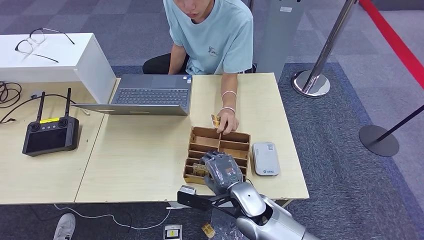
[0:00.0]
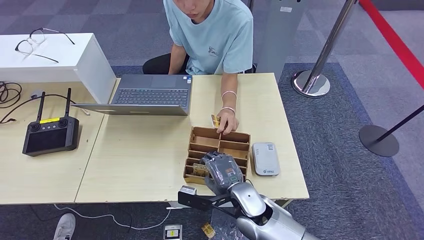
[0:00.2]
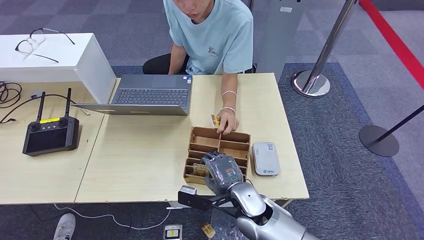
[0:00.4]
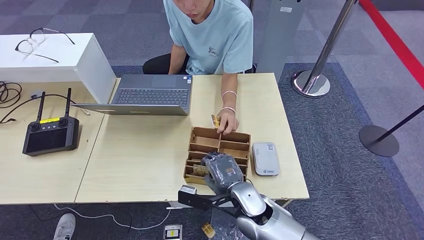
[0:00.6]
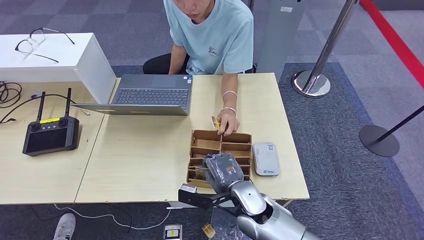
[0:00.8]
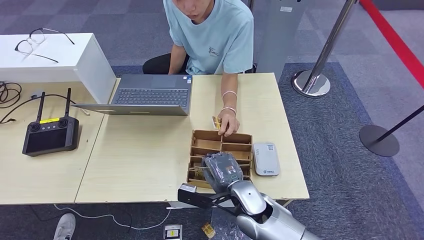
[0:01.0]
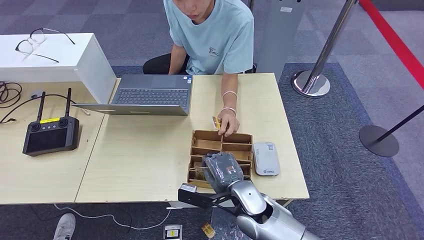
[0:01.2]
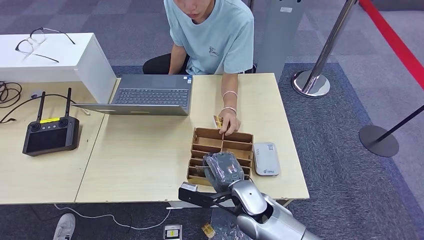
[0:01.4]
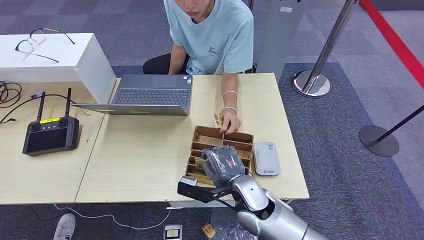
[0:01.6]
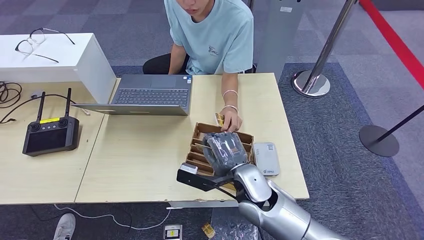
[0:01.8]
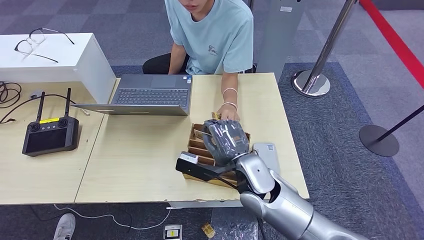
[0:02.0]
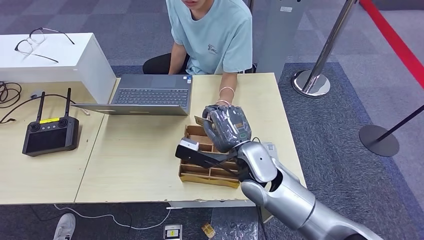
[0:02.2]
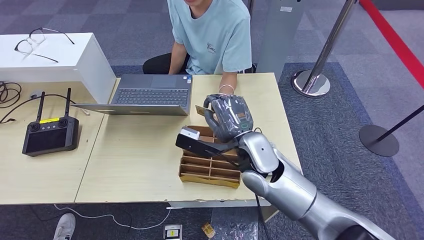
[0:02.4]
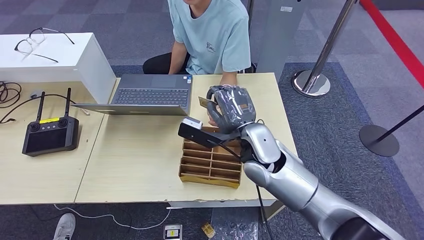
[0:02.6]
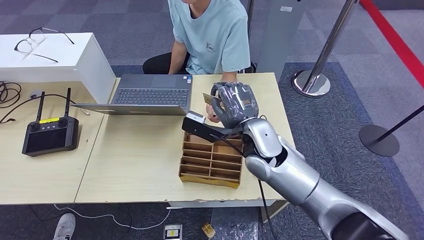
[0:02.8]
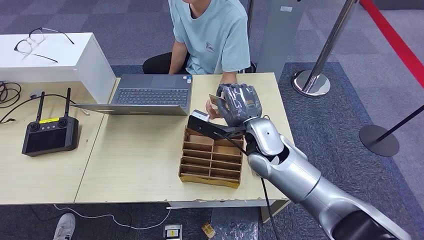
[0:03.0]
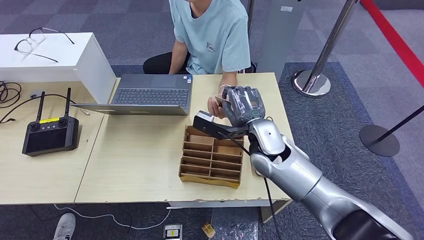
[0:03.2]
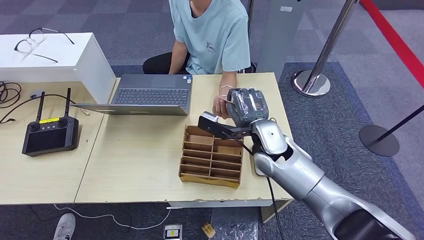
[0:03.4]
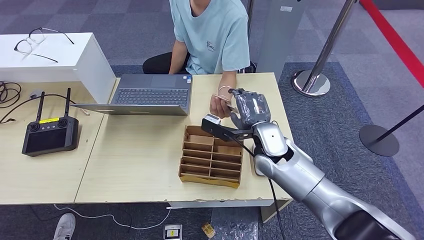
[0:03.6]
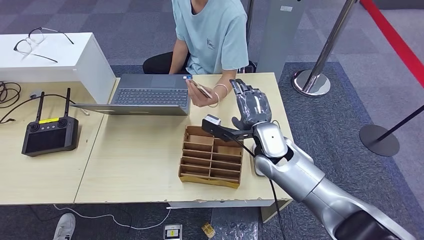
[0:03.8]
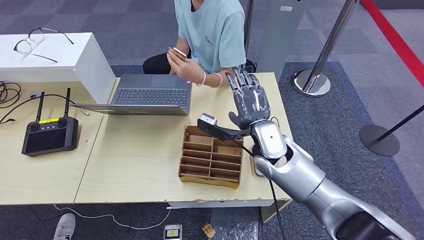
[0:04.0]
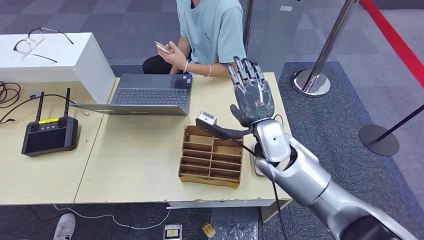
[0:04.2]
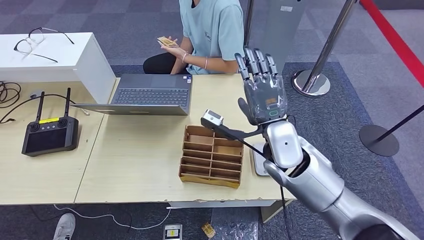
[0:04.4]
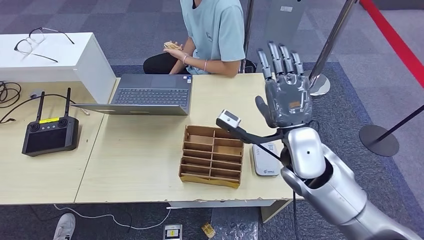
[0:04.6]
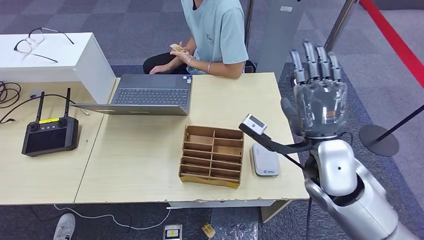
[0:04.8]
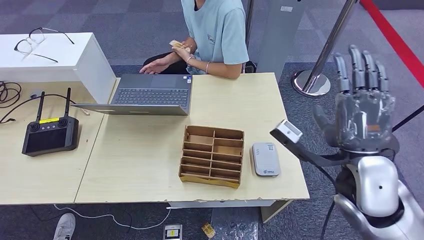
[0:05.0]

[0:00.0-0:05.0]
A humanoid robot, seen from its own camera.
Step, 0:01.4 to 0:05.0: Hand the room key to the person.
0:00.0 to 0:01.6: The hands make only small movements.
0:01.6 to 0:03.4: The right hand is displaced forward and upward by about 15 cm.
0:03.4 to 0:05.0: The right hand is displaced backward, to the right and upward by some 20 cm.

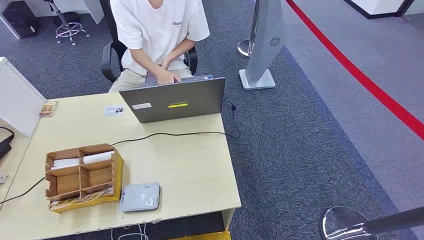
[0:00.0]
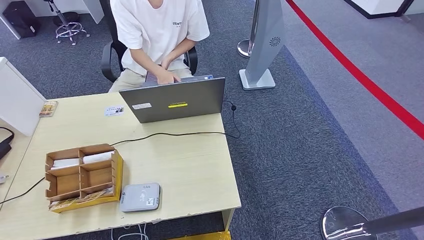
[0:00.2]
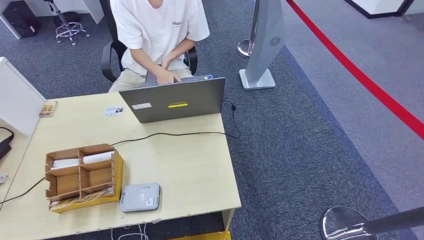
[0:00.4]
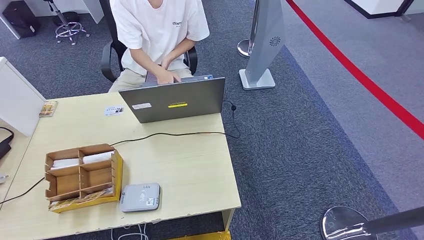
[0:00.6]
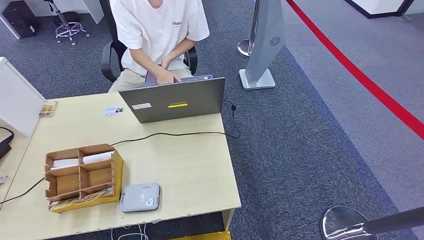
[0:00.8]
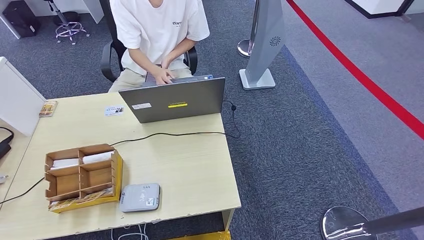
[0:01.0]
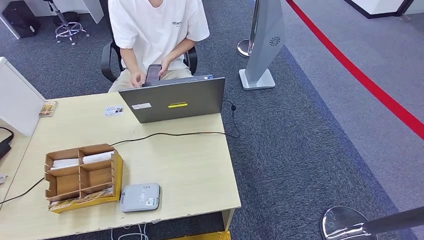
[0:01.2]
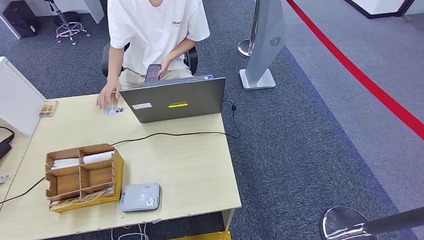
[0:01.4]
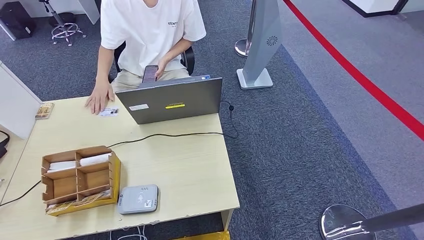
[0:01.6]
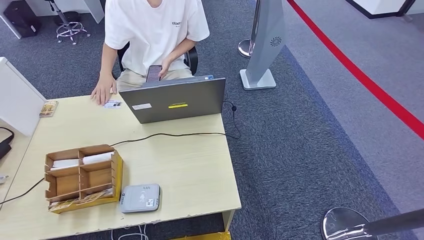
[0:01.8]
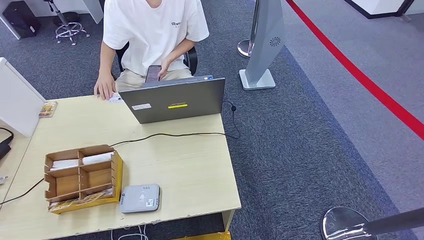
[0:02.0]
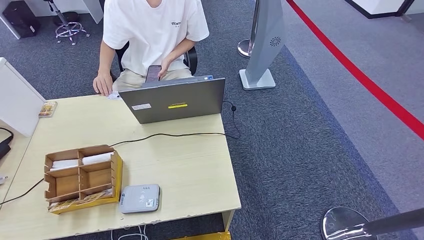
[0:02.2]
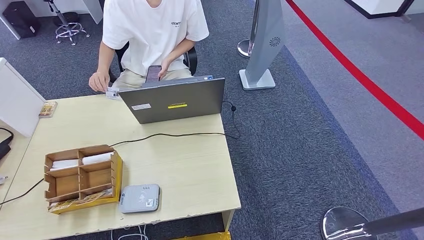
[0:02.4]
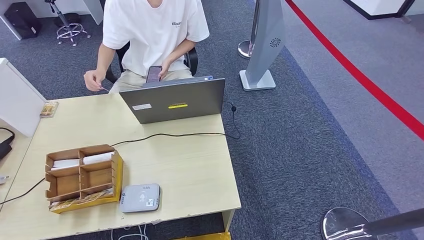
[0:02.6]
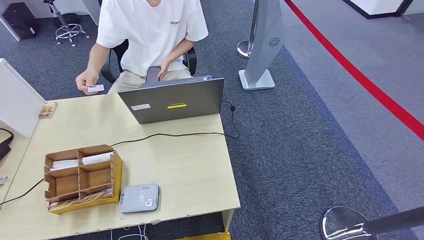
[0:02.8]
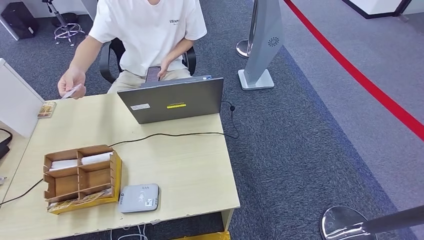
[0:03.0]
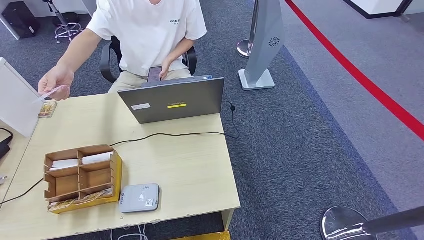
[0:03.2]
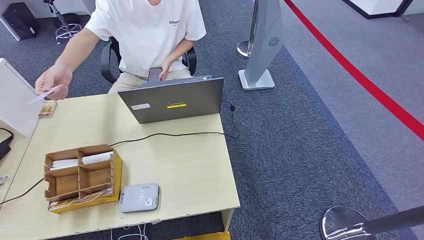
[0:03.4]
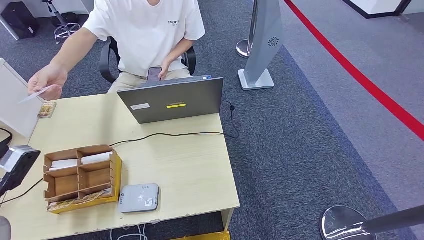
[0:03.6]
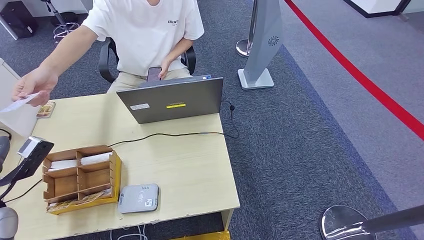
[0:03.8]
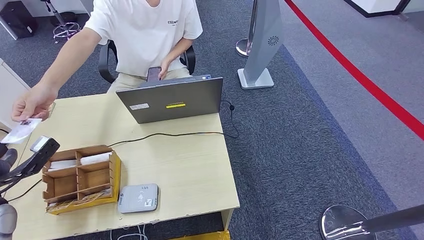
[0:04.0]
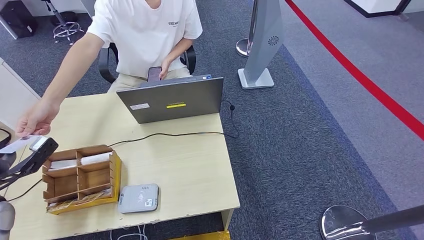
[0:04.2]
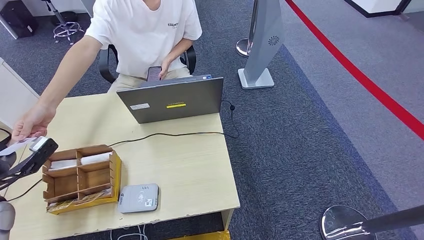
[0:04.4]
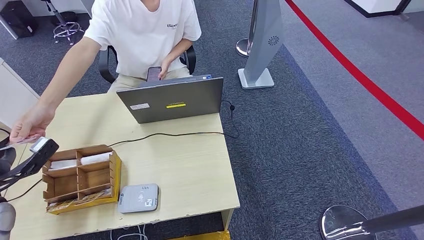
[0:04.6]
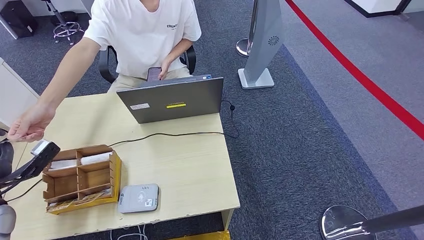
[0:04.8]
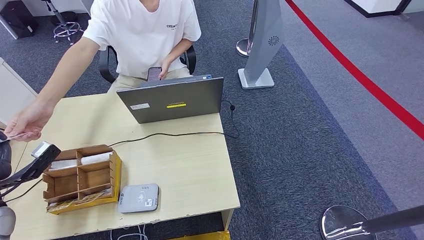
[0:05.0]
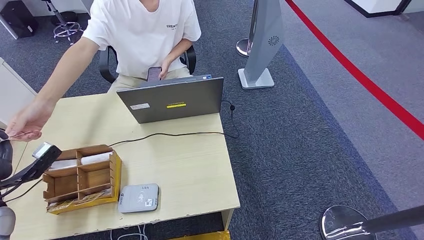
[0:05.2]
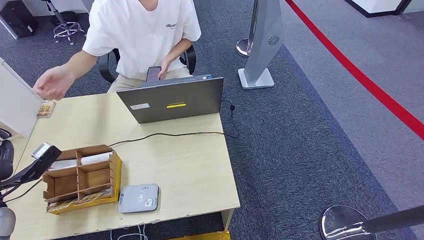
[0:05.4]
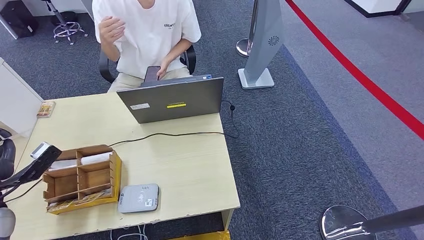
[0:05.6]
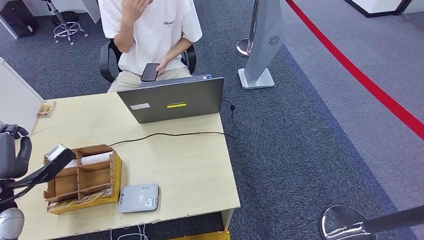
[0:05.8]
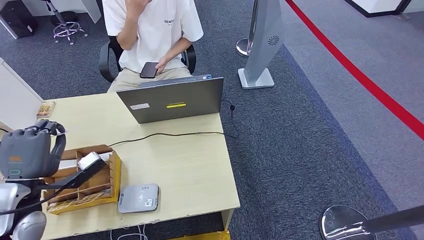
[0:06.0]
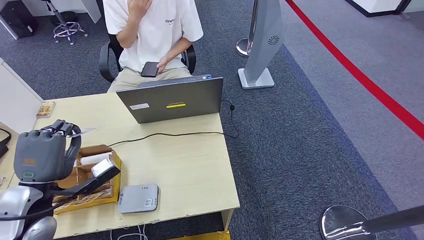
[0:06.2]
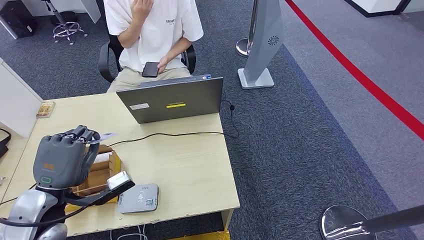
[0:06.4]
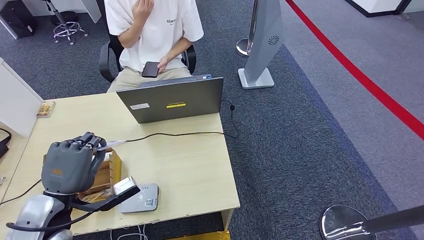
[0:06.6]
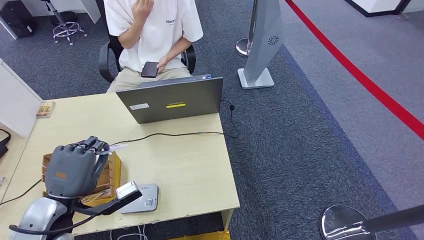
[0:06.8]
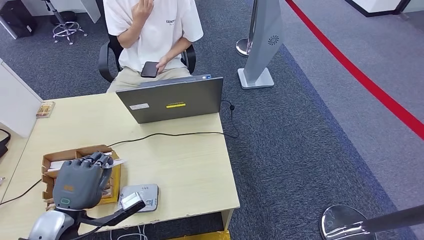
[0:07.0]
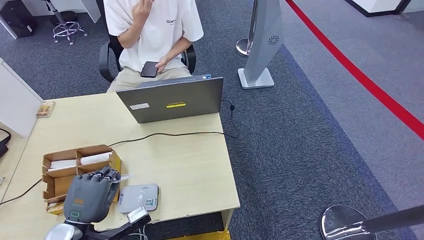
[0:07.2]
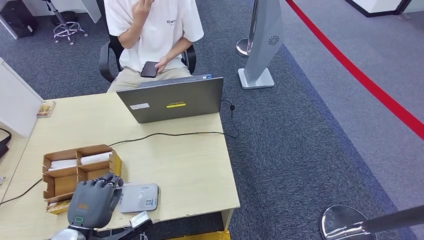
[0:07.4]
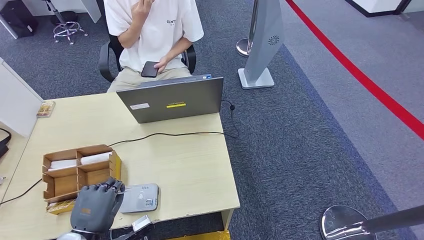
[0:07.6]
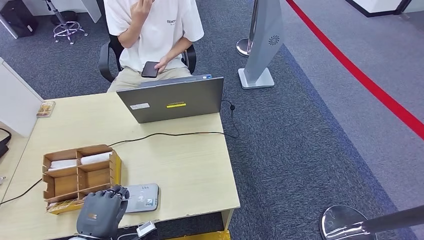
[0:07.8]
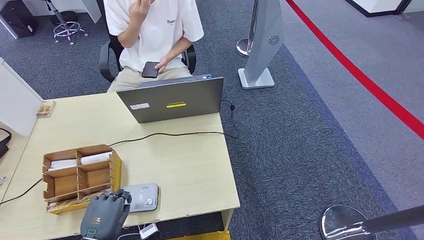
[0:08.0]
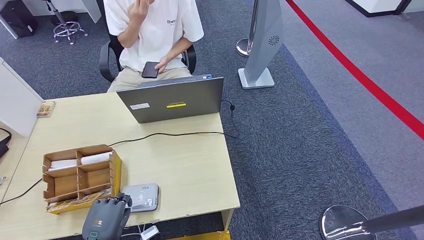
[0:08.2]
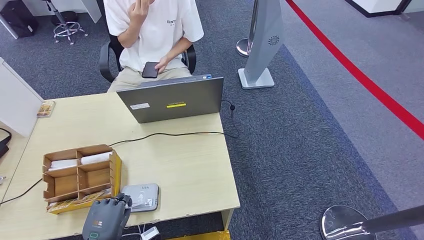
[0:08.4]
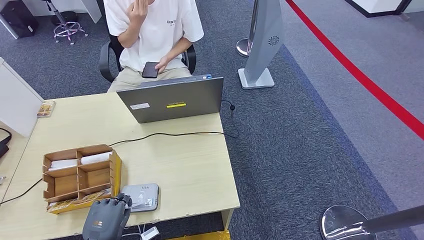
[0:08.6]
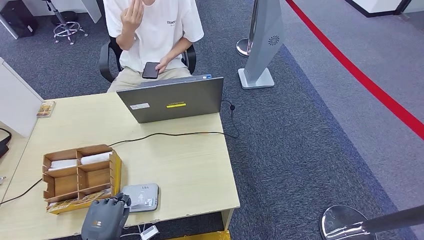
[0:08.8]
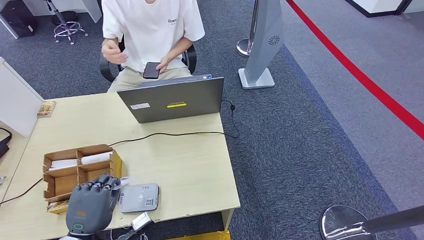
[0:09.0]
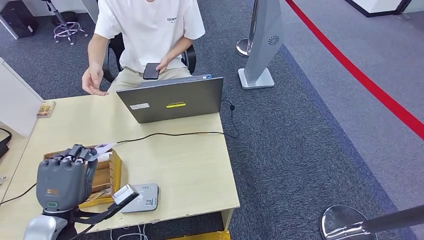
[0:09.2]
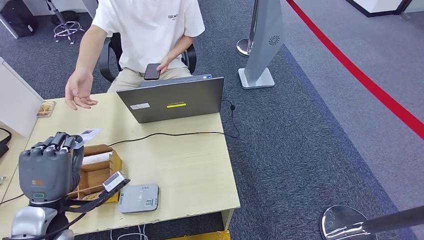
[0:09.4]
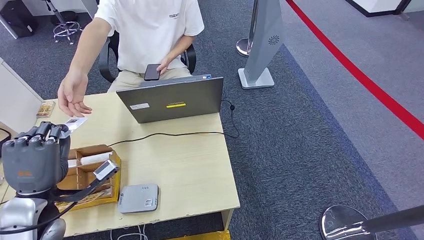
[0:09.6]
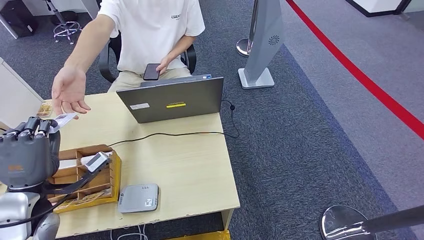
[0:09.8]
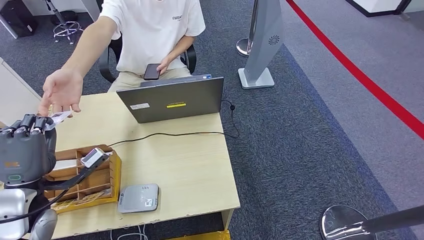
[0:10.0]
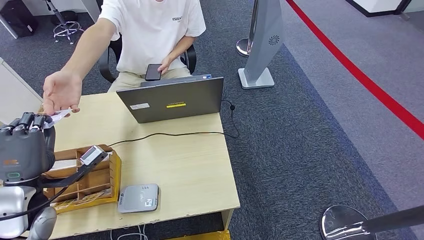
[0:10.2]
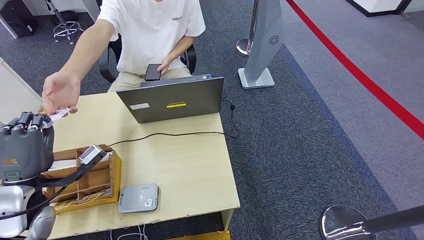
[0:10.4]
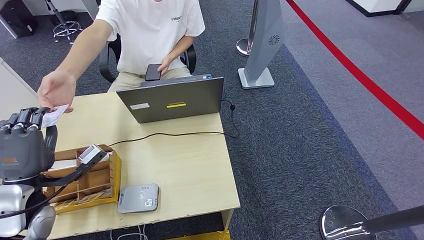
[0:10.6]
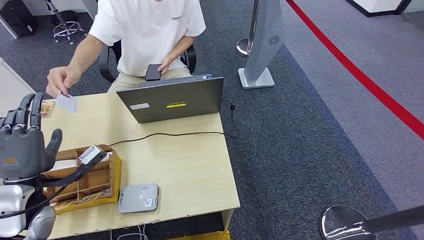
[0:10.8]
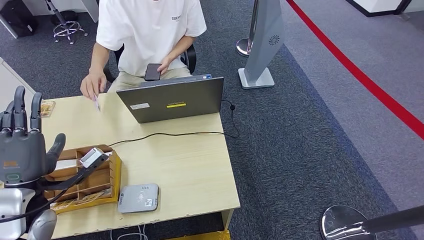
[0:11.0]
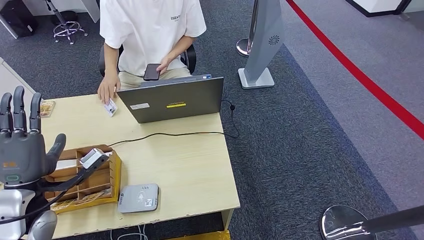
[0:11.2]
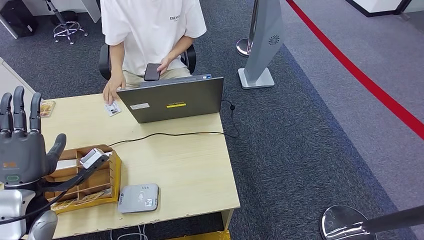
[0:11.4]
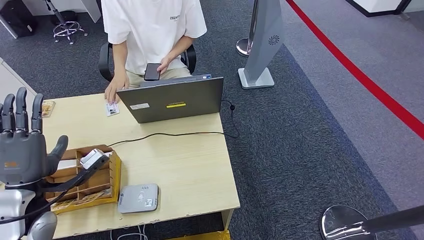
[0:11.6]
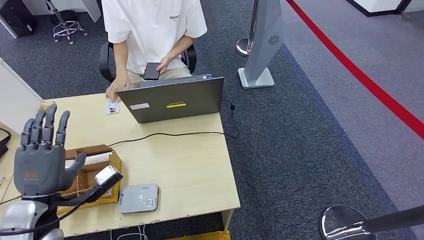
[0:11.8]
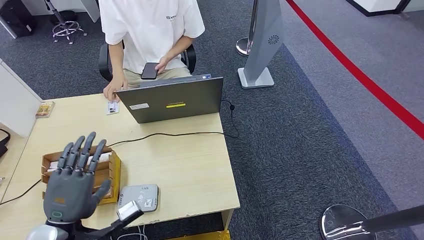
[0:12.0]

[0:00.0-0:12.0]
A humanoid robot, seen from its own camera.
Step, 0:00.0 to 0:05.2: Take the ID card from the person's hand.
Step, 0:05.4 to 0:08.0: Place the ID card on the card reader.
Step, 0:08.2 to 0:10.8: Hand the ID card to the person.
0:01.6 to 0:03.0: The left hand goes approximately 30 cm upward.
0:03.0 to 0:04.4: The left hand is displaced forward by about 15 cm.
0:04.4 to 0:06.0: The left hand travels to the right by about 10 cm.
0:06.0 to 0:07.6: The left hand goes roughly 15 cm downward, backward and to the right.
0:07.6 to 0:09.0: The hands make only small movements.
0:09.0 to 0:10.4: The left hand heads upward, forward and to the left, covering roughly 15 cm.
0:10.4 to 0:12.0: The left hand goes approximately 10 cm backward and to the right.
